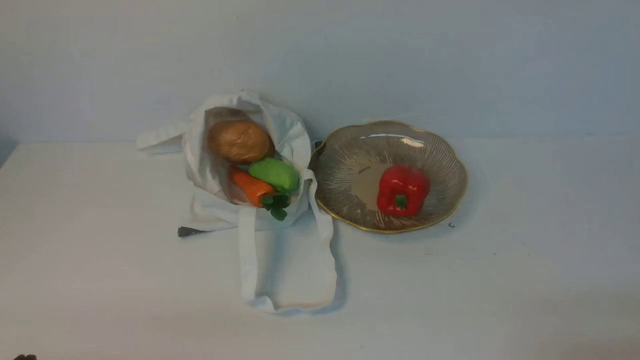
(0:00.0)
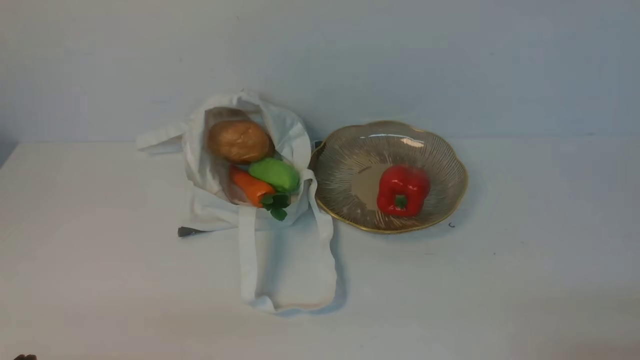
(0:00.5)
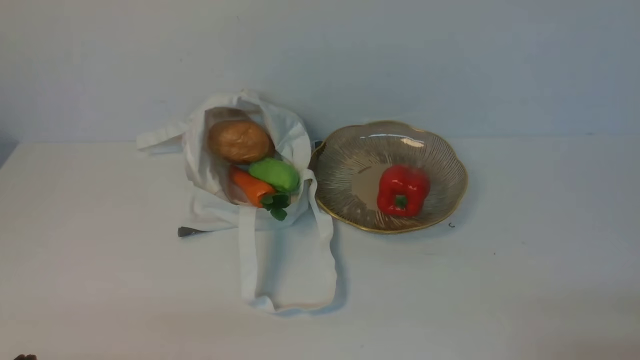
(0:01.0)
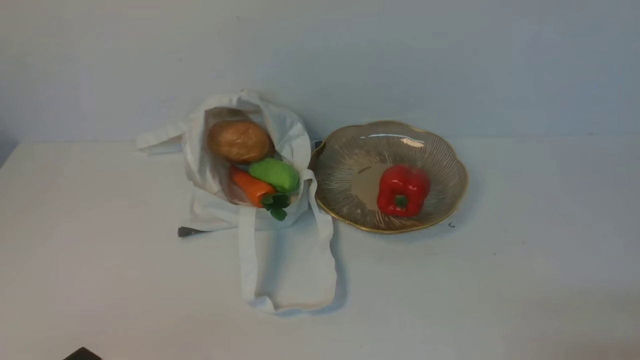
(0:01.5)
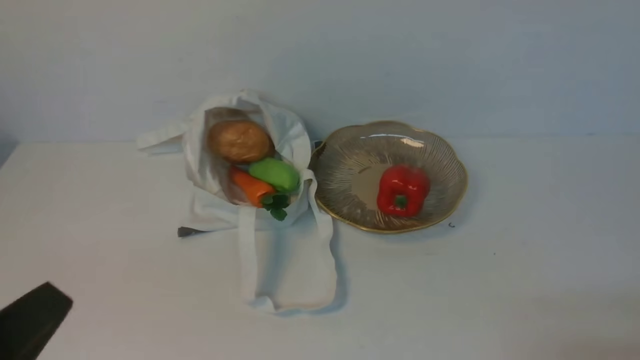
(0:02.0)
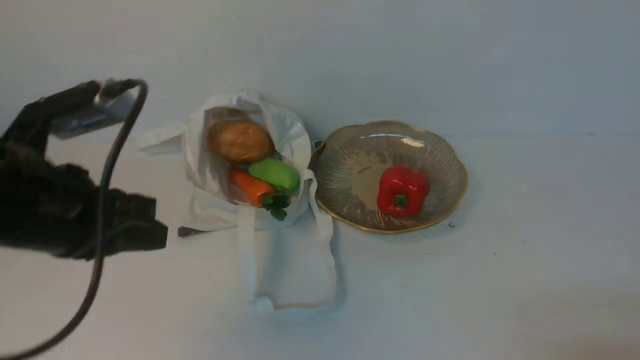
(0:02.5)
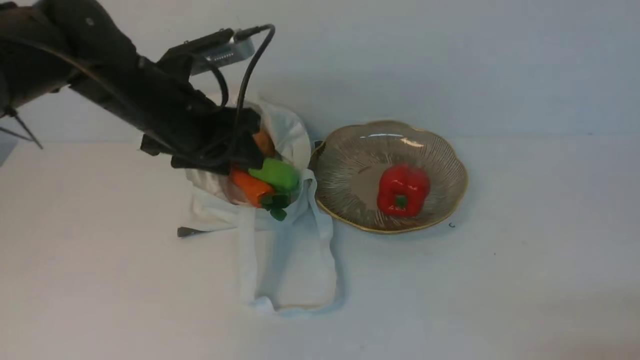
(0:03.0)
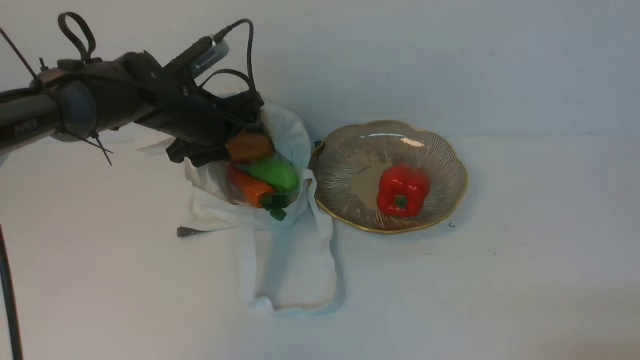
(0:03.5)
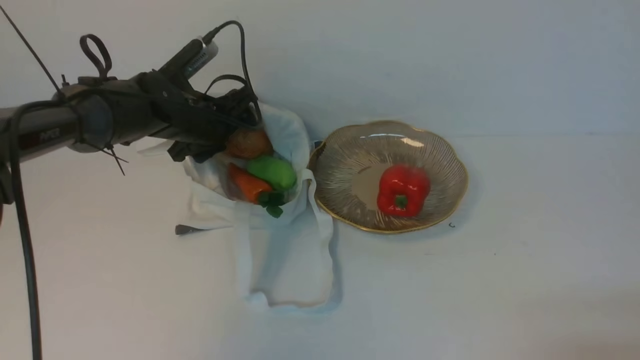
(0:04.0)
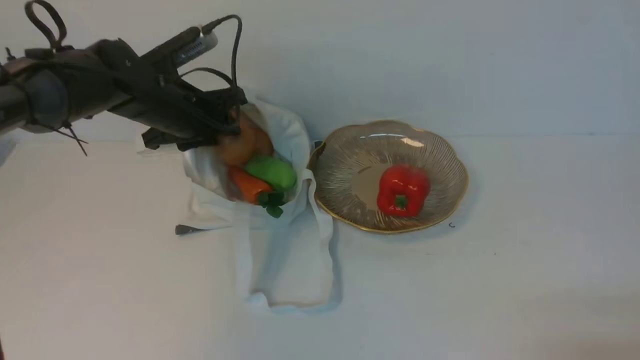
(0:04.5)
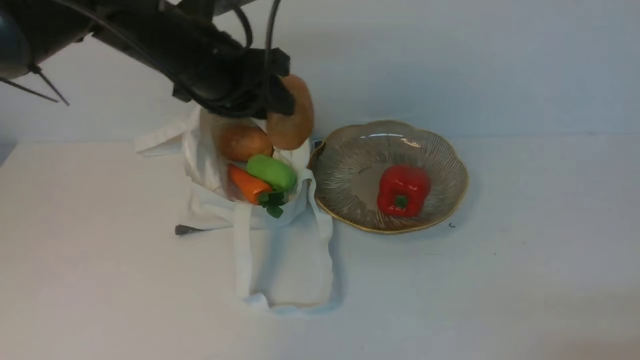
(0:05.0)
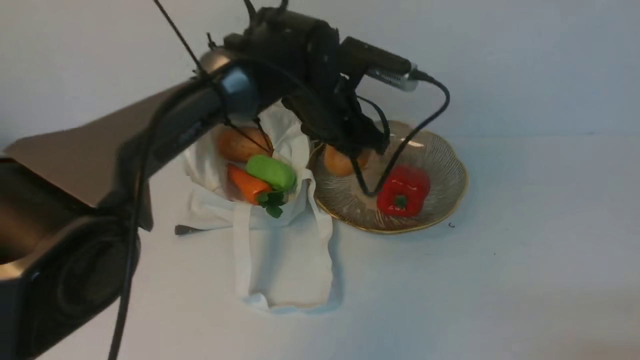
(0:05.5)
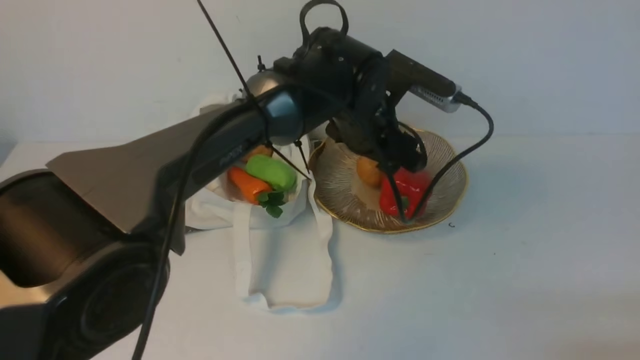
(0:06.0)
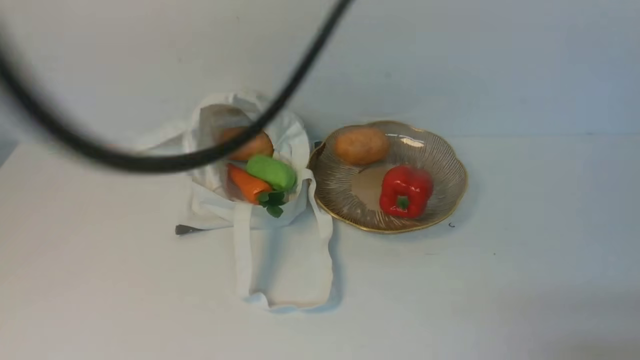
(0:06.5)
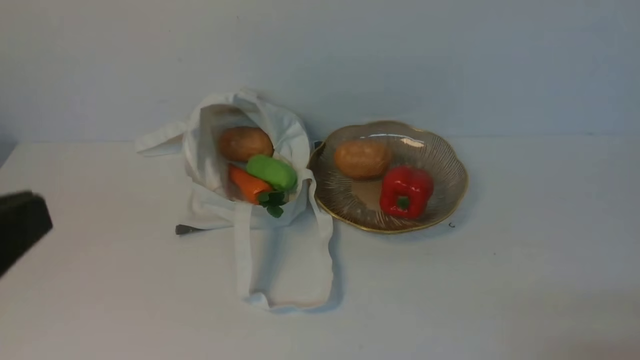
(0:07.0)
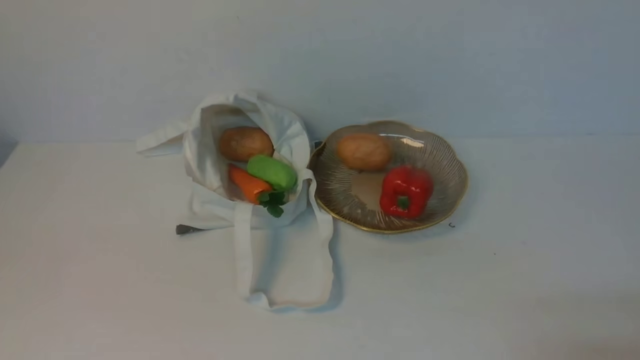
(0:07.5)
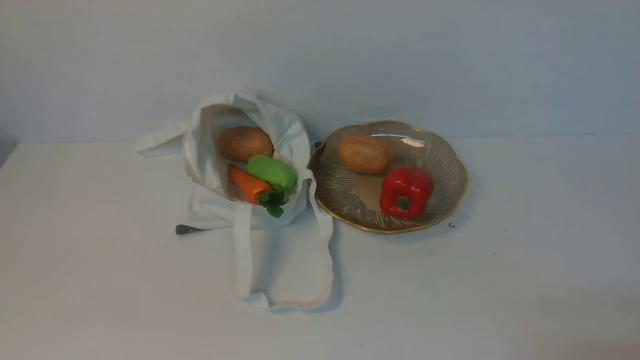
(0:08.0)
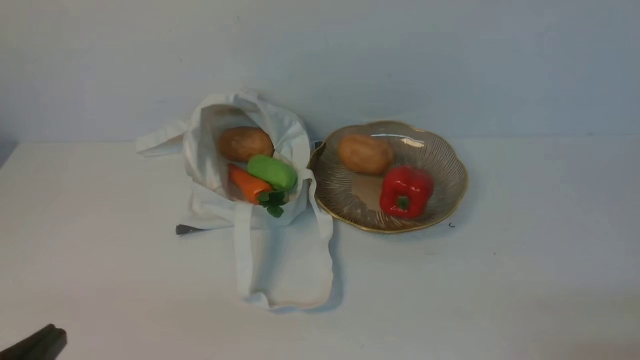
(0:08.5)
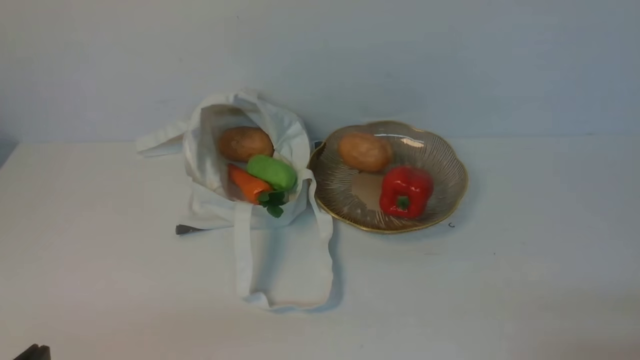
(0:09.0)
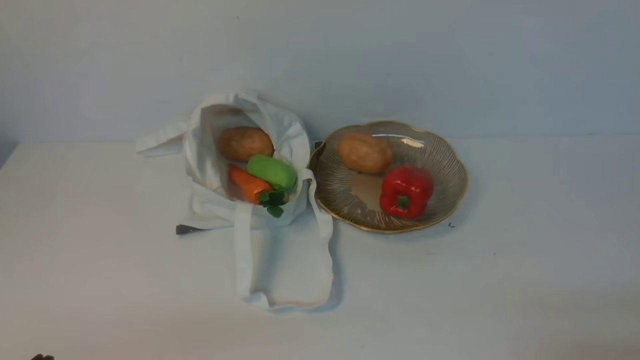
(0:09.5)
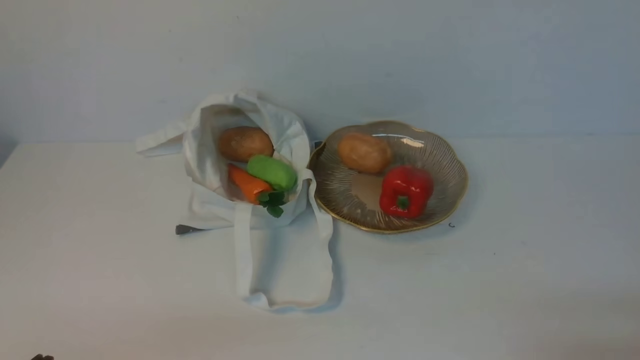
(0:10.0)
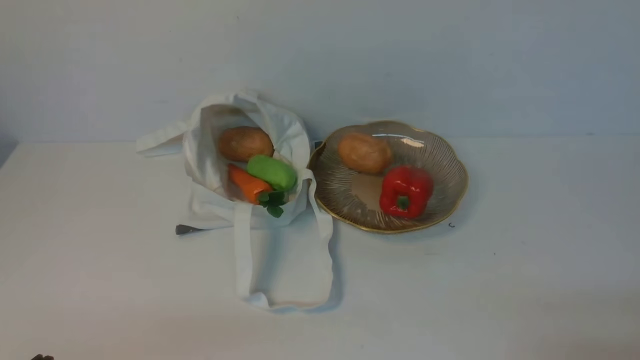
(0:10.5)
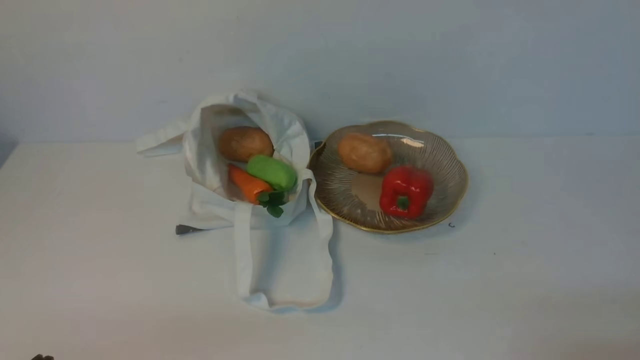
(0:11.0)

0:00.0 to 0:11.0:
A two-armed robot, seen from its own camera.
Task of the whole recording: take vegetables from cloth bag on white table place on plate.
Step, 0:00.0 to 0:04.0: Grasp the potato with left gripper.
Step, 0:04.5 to 0:06.0: Place the potato on the plate with left gripper.
0:00.0 to 0:02.0: The left gripper is displaced upward by about 10 cm.
0:02.0 to 0:03.5: The left gripper shifts some 40 cm forward, and opens.
0:03.5 to 0:05.5: The left gripper travels to the right by approximately 15 cm, and closes.
0:05.5 to 0:07.5: The left gripper shifts roughly 50 cm backward and to the left, and closes.
0:09.0 to 0:11.0: Both grippers stay about where they are.
